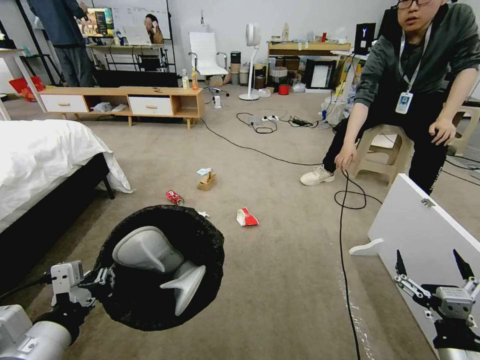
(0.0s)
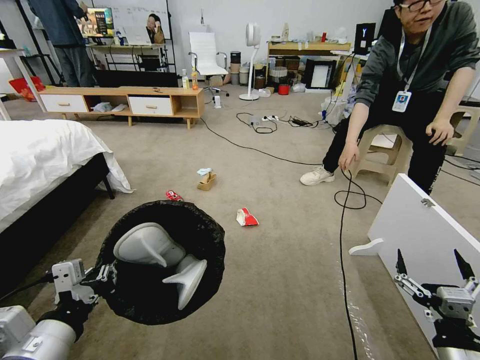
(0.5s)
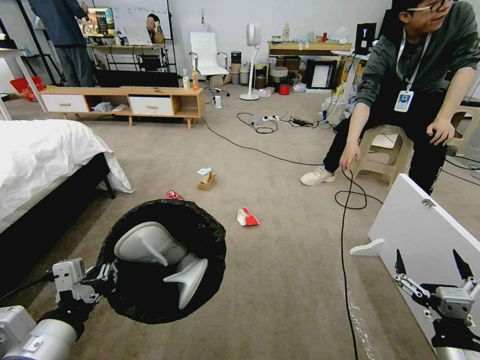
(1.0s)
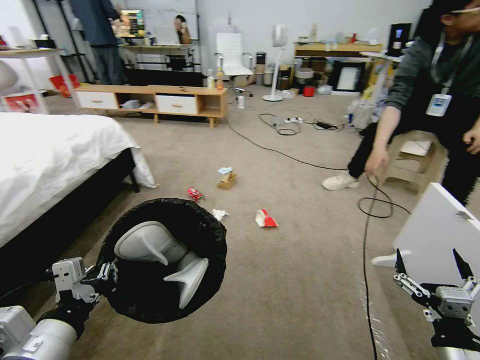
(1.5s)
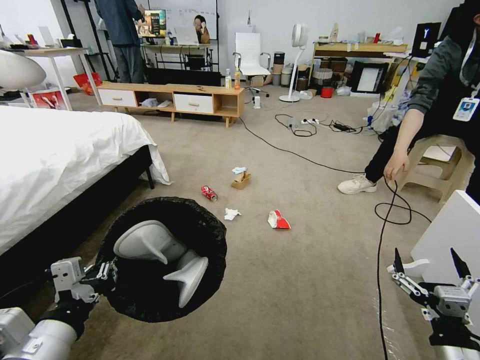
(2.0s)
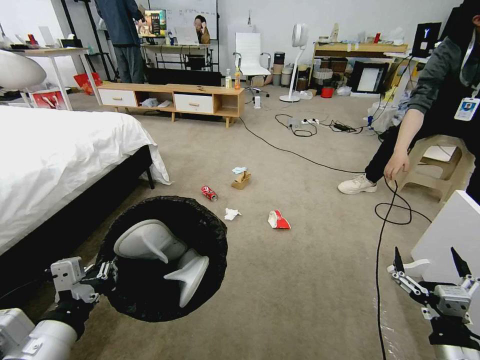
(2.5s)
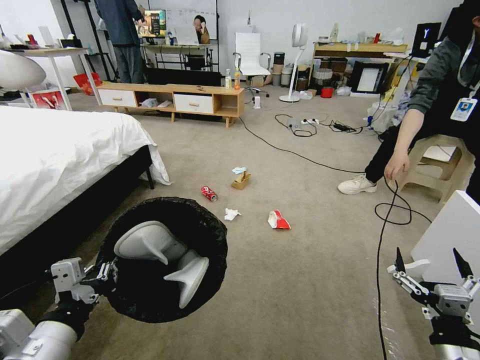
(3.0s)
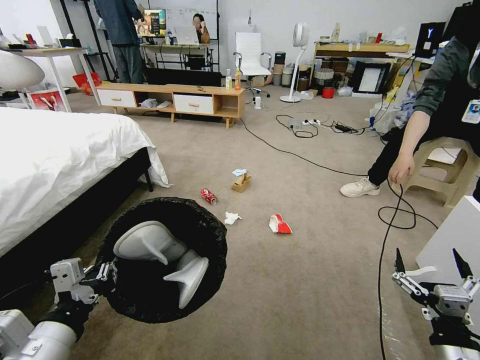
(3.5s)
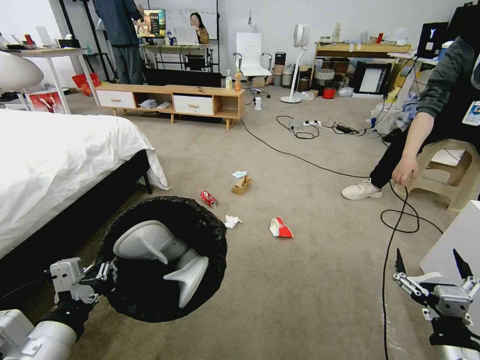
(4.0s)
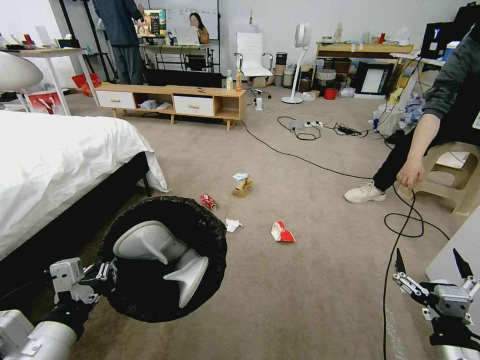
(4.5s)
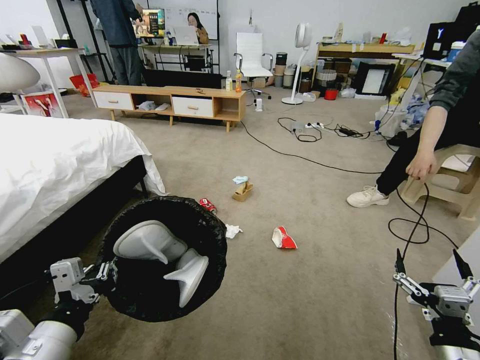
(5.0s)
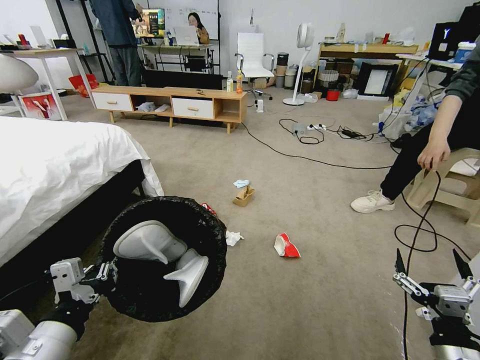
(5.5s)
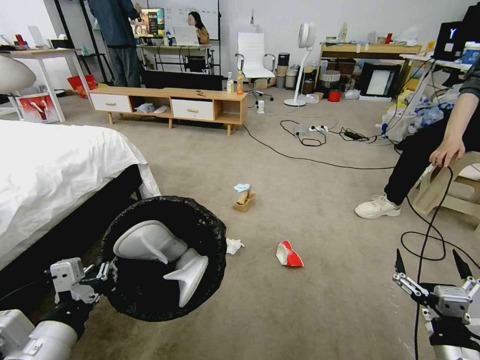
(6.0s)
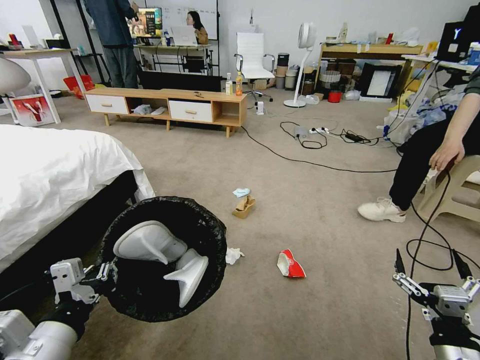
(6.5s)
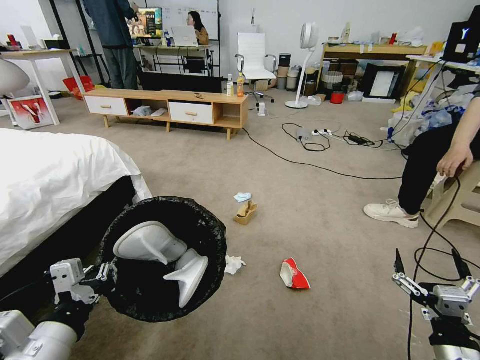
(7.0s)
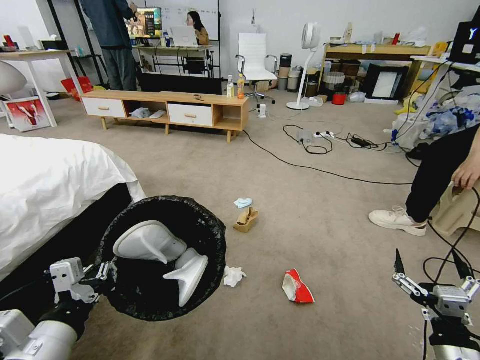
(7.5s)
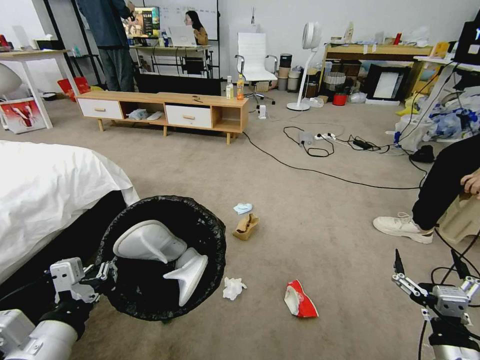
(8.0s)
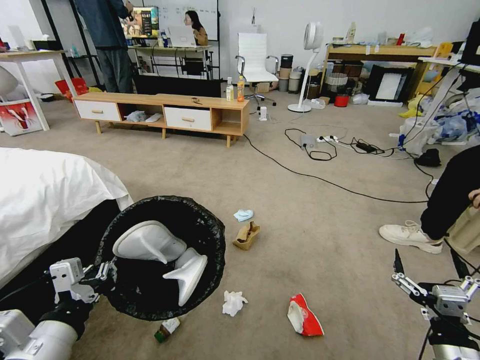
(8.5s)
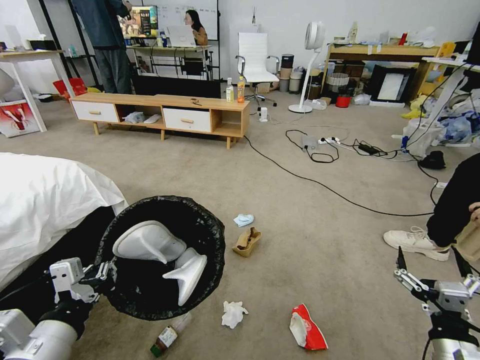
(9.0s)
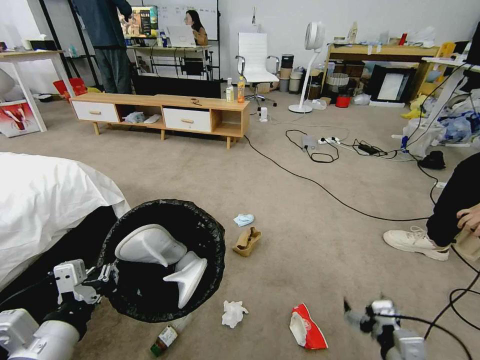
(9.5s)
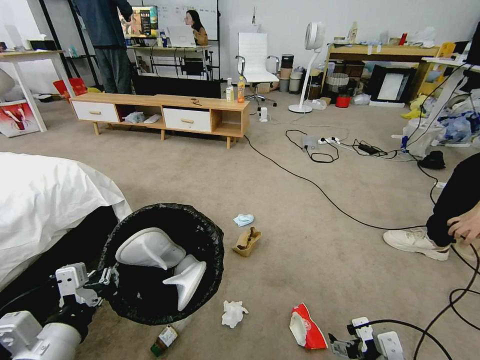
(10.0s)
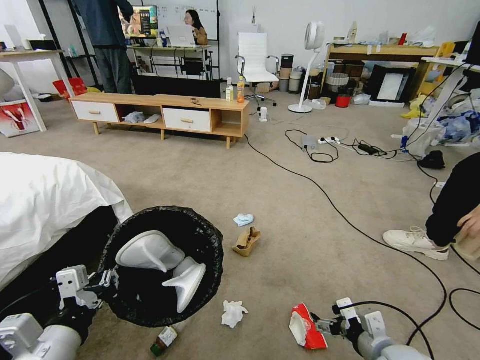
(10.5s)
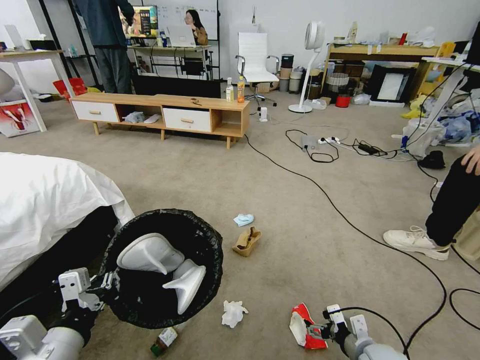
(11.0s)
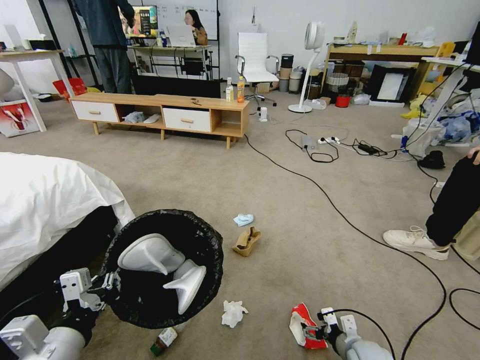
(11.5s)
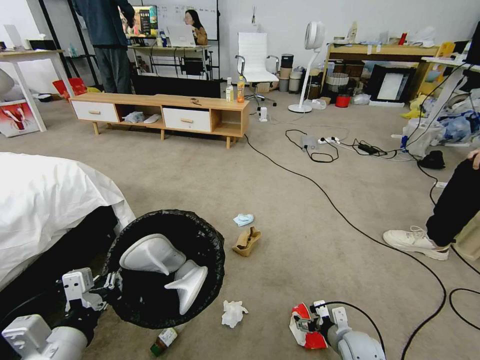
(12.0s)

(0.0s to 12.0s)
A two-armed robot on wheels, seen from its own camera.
Task of the whole recording: Pick up the trash bin and place the garbage on the floor into it.
2.0s - 4.0s: Both grippers stay about where they are.
8.0s - 10.0s: The right gripper moves to the left, some 5 cm.
10.0s - 12.0s: The right gripper moves downward and forward, some 20 cm.

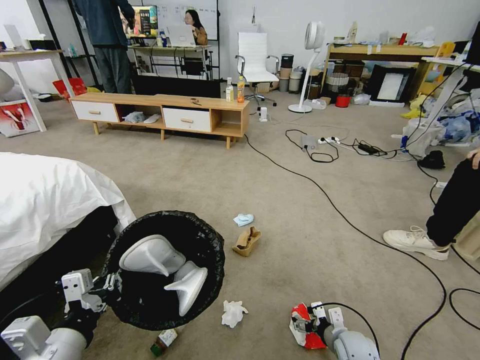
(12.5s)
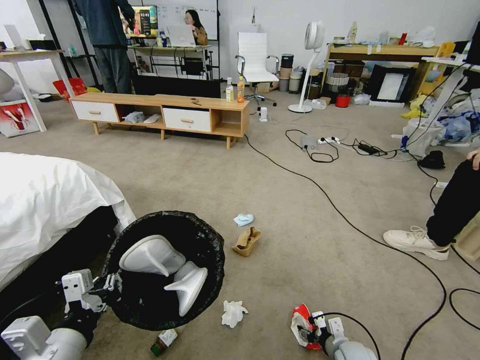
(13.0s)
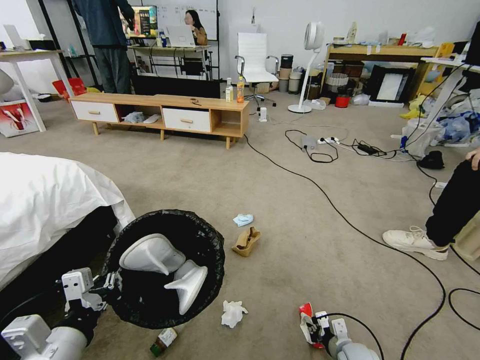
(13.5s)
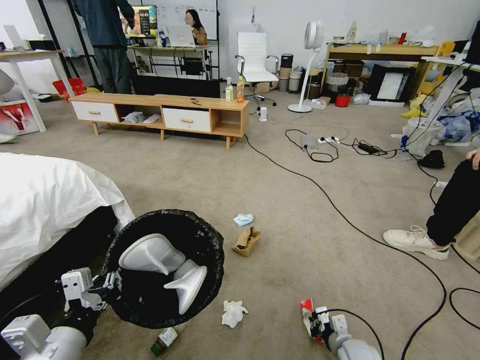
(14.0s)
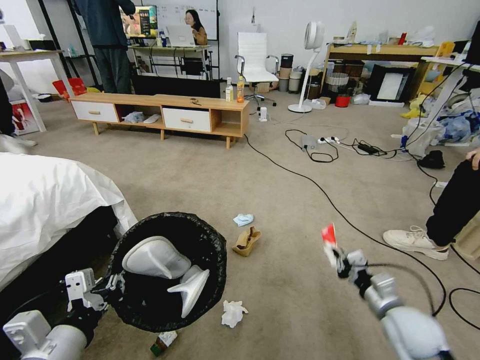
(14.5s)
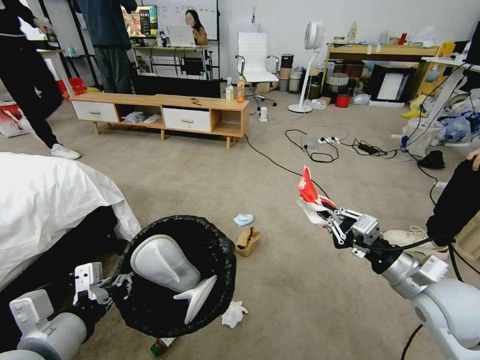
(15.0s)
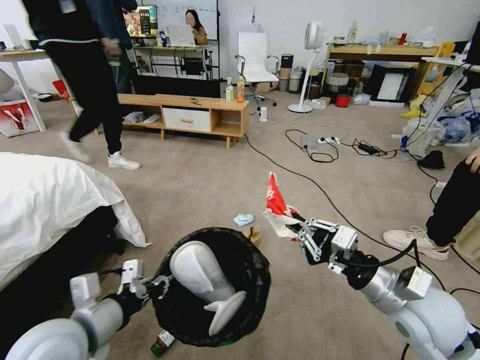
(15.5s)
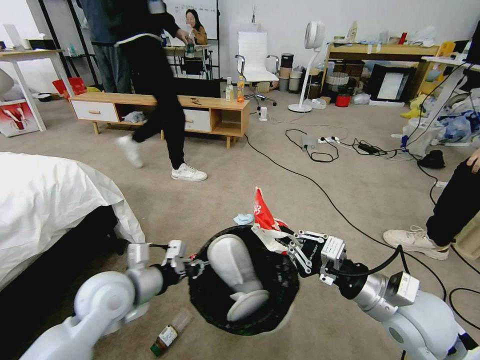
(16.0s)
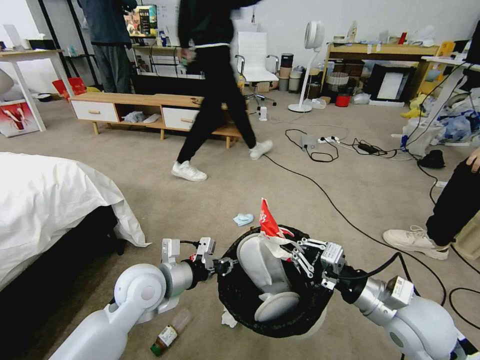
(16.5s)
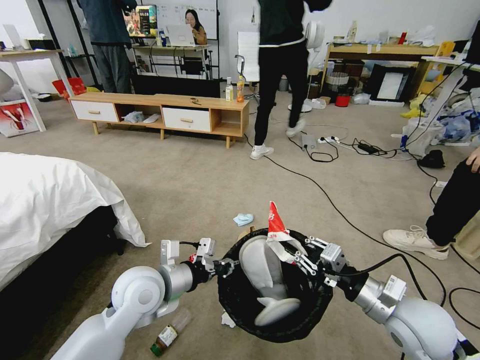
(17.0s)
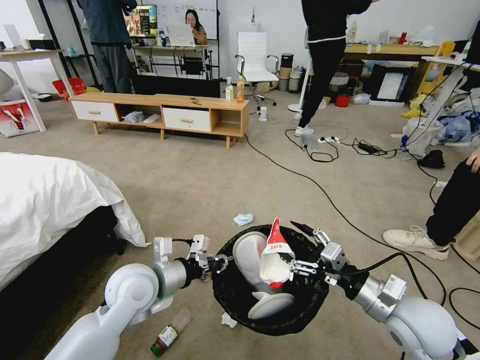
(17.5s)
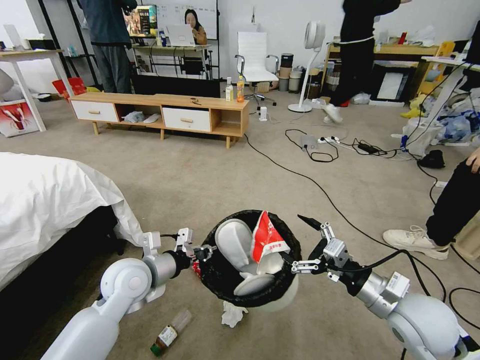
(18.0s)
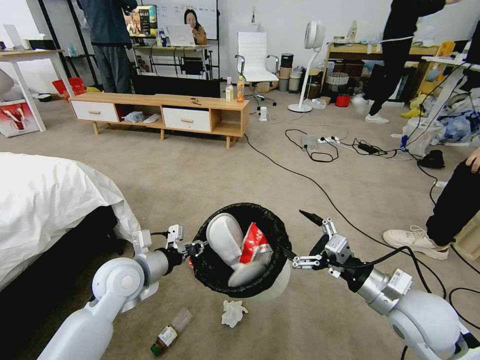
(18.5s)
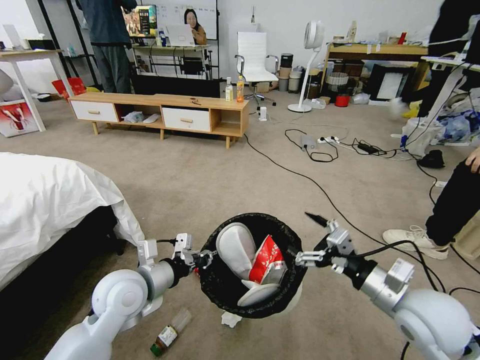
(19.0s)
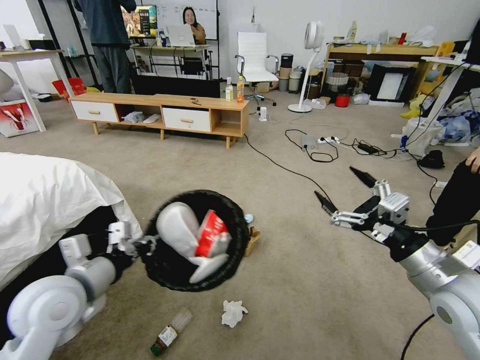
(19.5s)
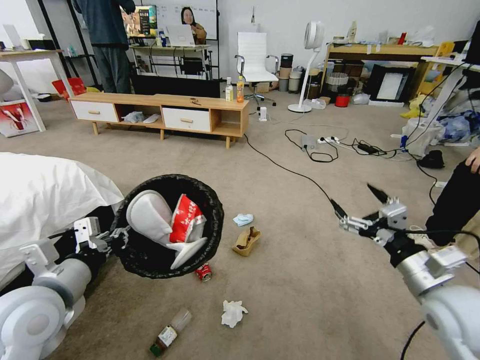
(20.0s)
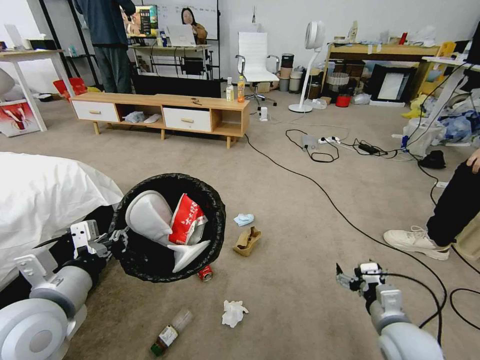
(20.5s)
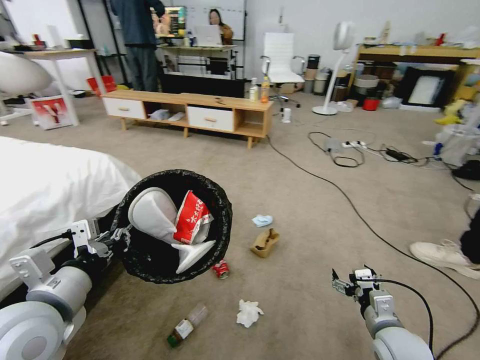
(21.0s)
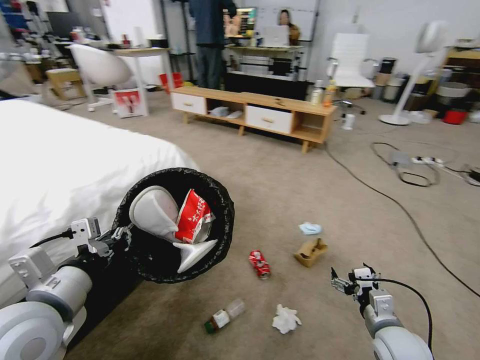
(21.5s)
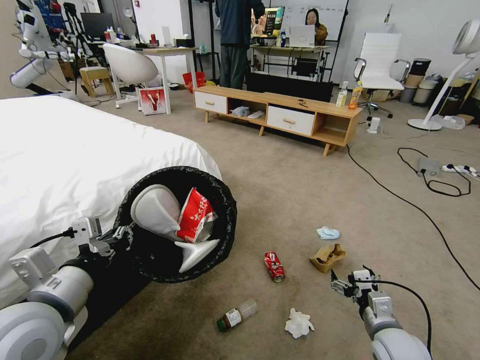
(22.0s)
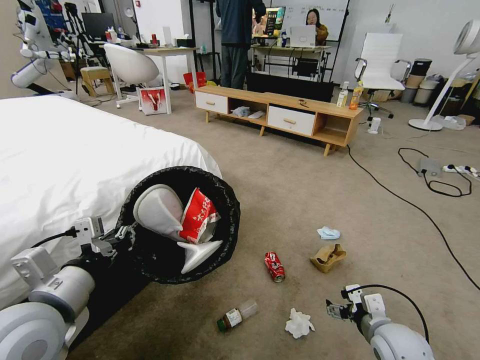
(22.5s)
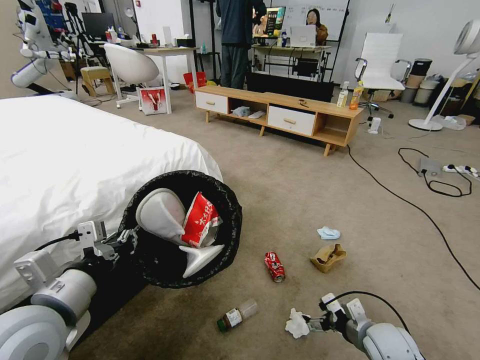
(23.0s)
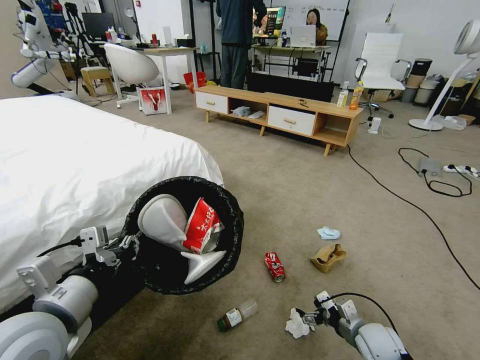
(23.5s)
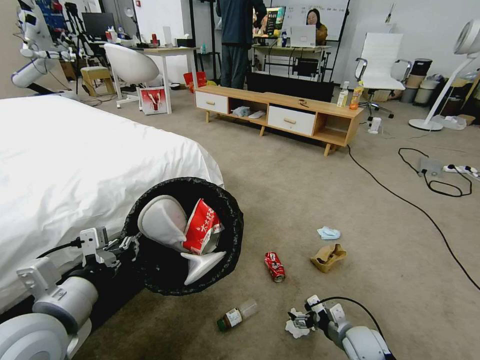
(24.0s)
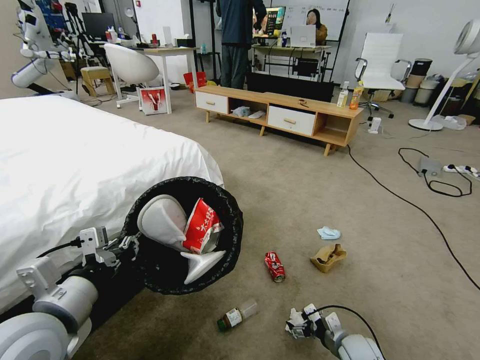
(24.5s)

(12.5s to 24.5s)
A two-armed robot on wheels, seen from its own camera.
Task of the whole recording: Pick up the trash bin and place the garbage on the floor into it.
12.5s - 14.5s: The right gripper moves upward, approximately 15 cm, and closes.
14.5s - 16.5s: The right gripper travels upward and to the left by some 10 cm. Meanwhile the left gripper shifts roughly 20 cm forward and to the right.
16.5s - 18.5s: The right gripper opens up. Meanwhile the left gripper travels to the left by approximately 5 cm.
18.5s - 20.5s: The left gripper goes about 15 cm backward, upward and to the left; the right gripper is displaced downward by some 10 cm.
22.5s - 24.5s: The right gripper shifts about 15 cm downward.

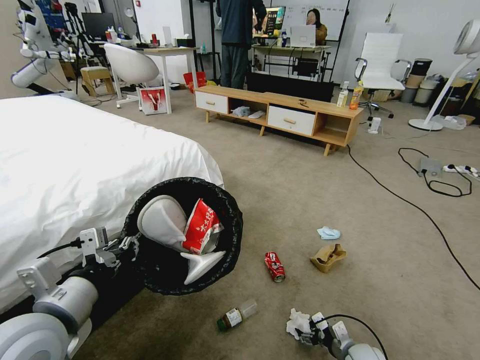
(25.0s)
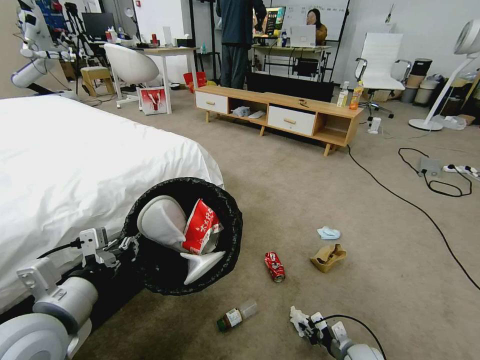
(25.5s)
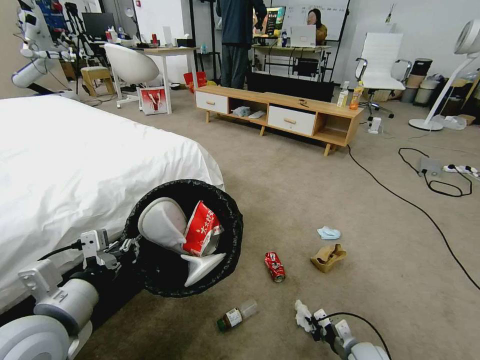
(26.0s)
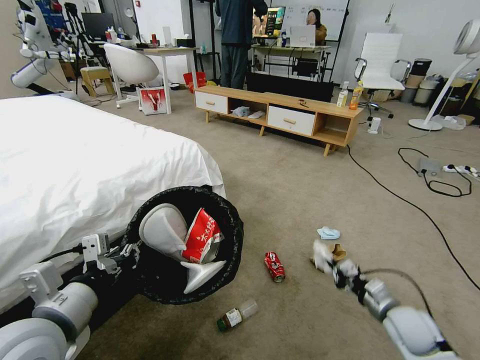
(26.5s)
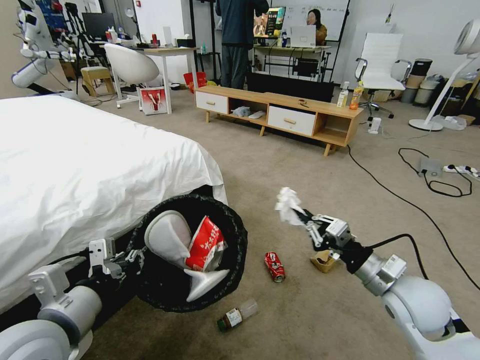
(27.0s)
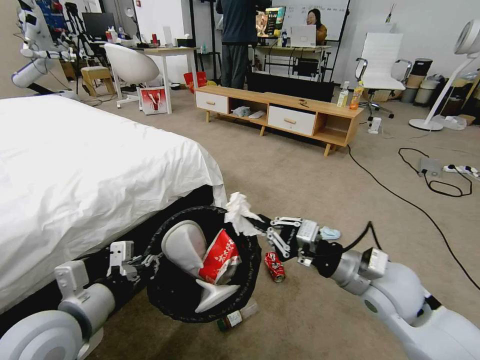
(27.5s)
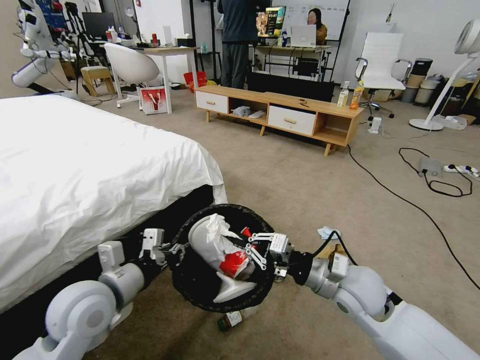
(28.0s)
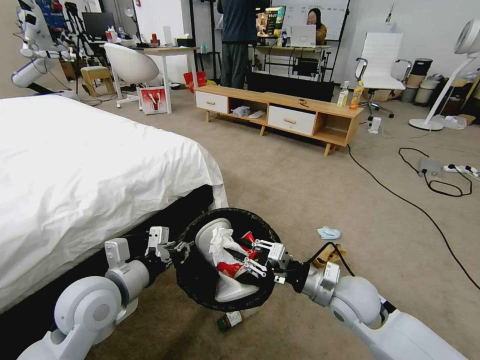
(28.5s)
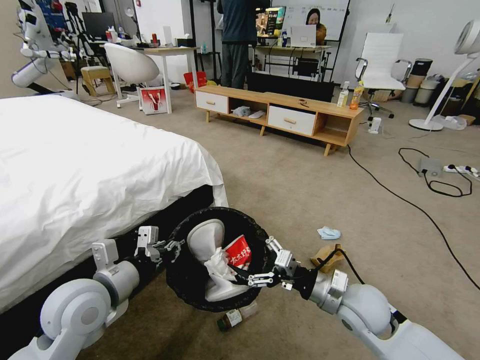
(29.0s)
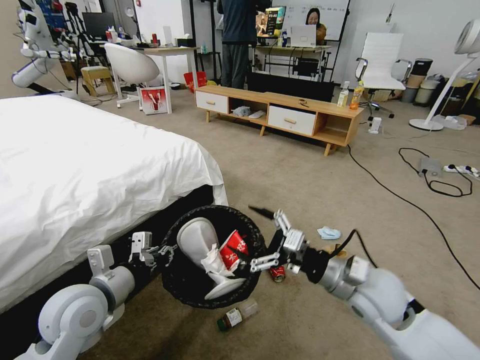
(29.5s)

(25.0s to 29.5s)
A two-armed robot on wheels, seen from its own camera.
Task of the whole recording: Pick up the trash bin and place the garbage on the floor into it.
25.0s - 27.0s: The right gripper is displaced upward by some 30 cm, and closes.
27.0s - 29.5s: The right gripper shifts approximately 5 cm to the left, moves some 5 cm downward and comes back, and opens up; the left gripper goes roughly 10 cm forward and downward.
